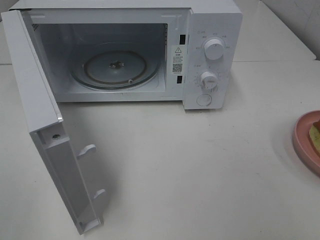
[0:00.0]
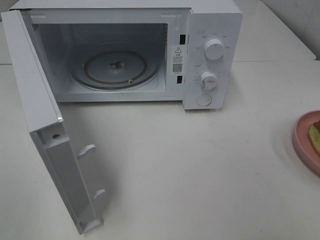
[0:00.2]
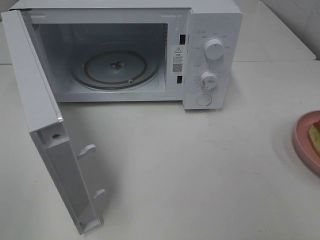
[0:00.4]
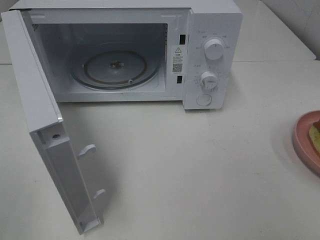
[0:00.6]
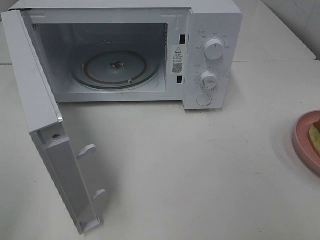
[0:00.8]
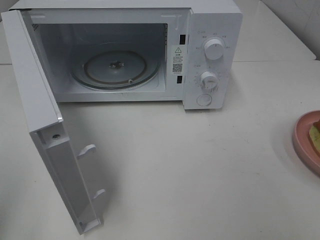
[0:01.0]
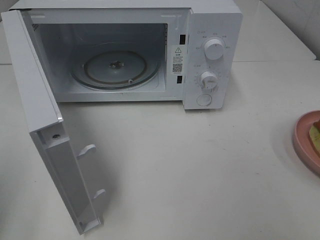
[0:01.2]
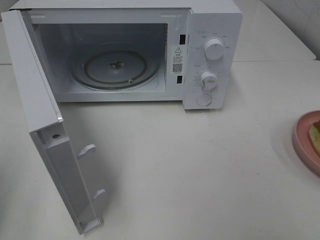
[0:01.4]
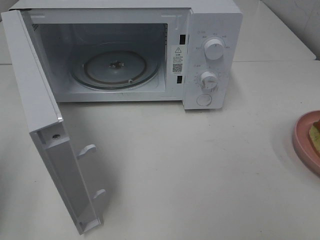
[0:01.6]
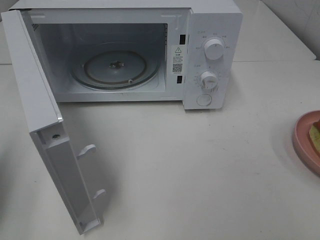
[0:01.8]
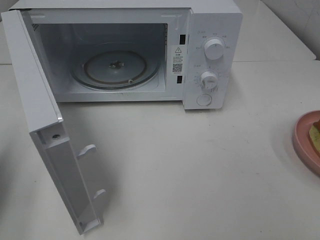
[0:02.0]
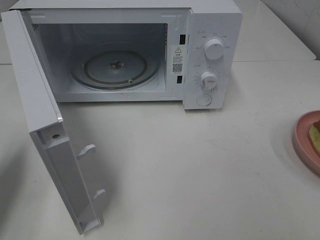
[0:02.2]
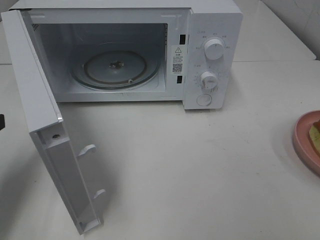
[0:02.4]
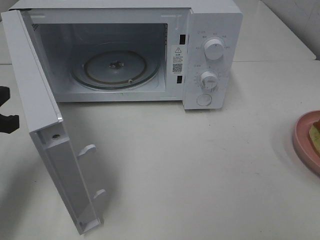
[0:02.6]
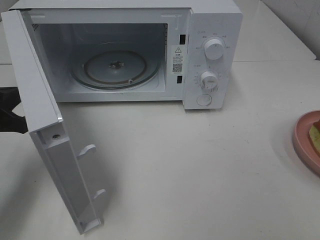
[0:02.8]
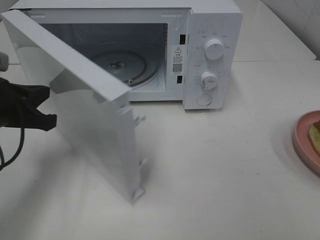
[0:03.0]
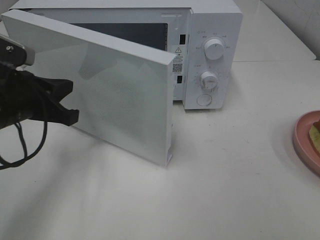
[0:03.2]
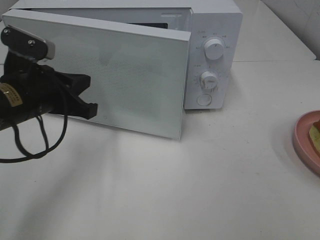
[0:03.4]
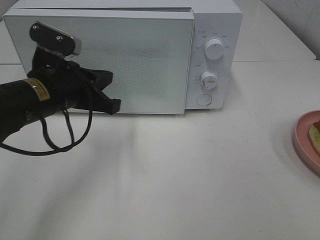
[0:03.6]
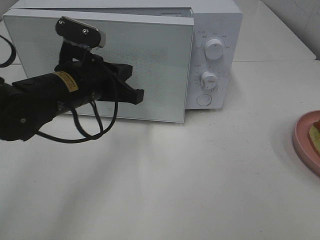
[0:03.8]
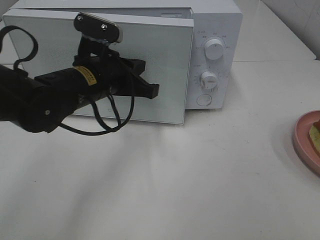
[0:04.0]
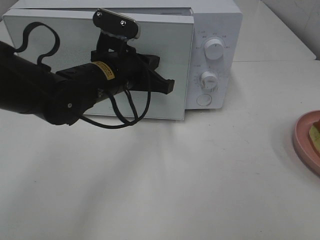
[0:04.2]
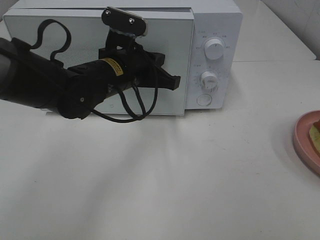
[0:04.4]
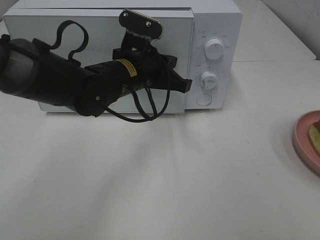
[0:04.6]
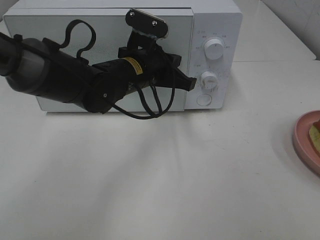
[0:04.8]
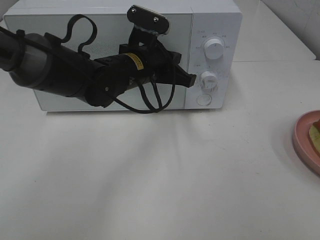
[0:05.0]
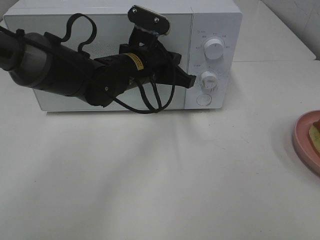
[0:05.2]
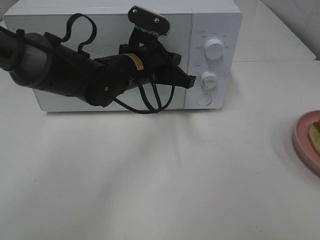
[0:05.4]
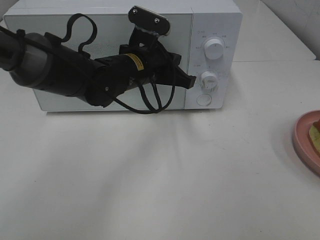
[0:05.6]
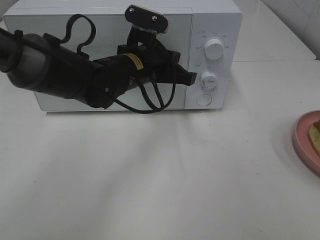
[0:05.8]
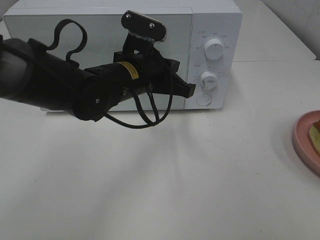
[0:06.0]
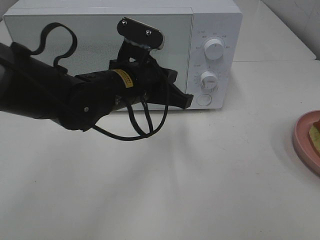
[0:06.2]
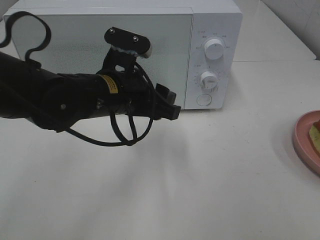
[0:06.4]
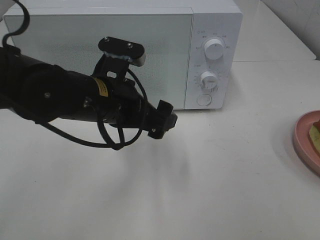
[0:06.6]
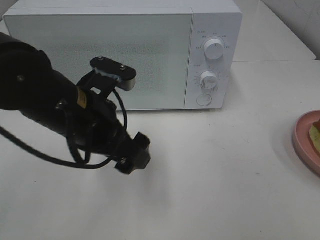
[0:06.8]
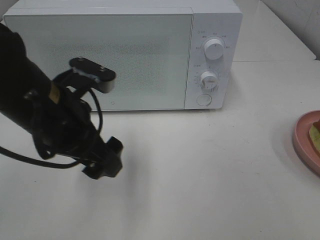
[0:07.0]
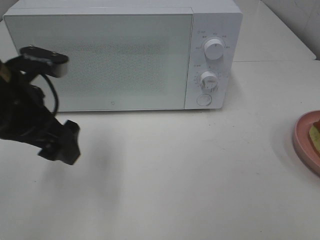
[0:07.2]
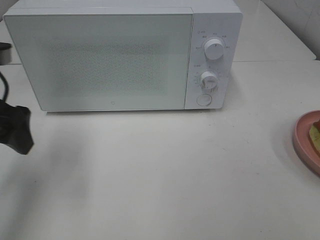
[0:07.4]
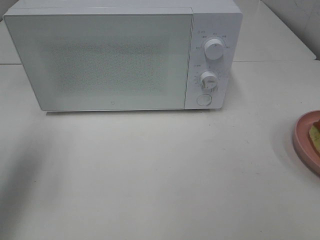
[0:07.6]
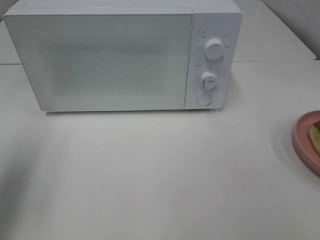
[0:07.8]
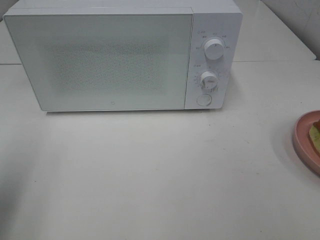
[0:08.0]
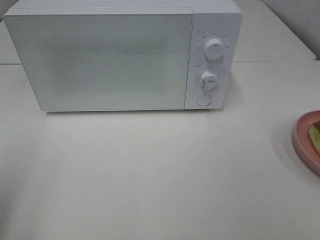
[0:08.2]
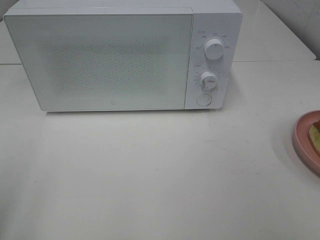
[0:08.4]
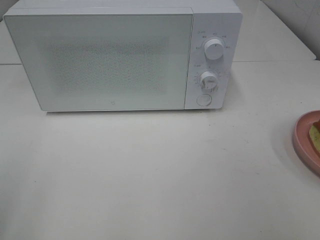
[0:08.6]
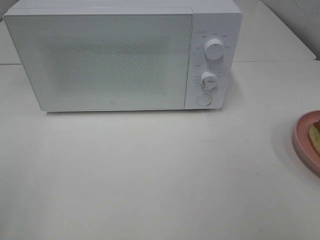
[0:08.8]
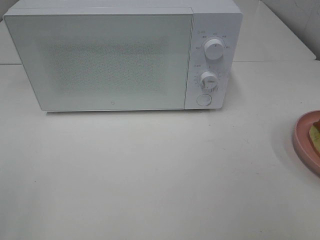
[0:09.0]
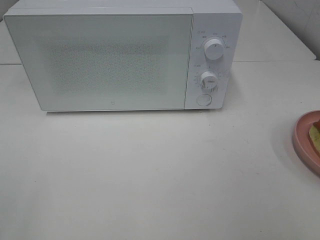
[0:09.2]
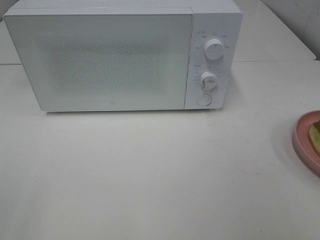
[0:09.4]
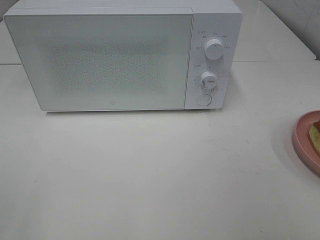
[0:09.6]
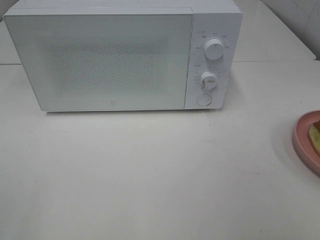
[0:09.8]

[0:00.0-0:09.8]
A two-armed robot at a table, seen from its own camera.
Task of the whole recording: Heat Sandwich.
Step, 0:00.0 to 0:06.4: Left hand: close the microwave door.
0:01.4 to 0:02.8: The left gripper travels forward, downward and to the right by roughly 15 cm.
0:02.8 to 0:04.2: The left gripper shifts approximately 20 cm to the right and forward.
0:04.2 to 0:05.6: The left gripper ends up about 5 cm from where it was.
0:05.6 to 0:07.0: The left gripper goes approximately 15 cm backward and to the left, and opens.
0:07.0 to 0:08.4: The left gripper heads to the left and backward, covering roughly 25 cm.
